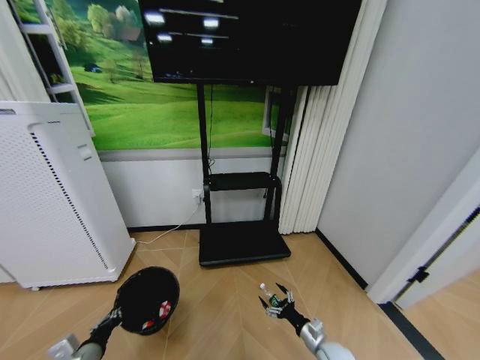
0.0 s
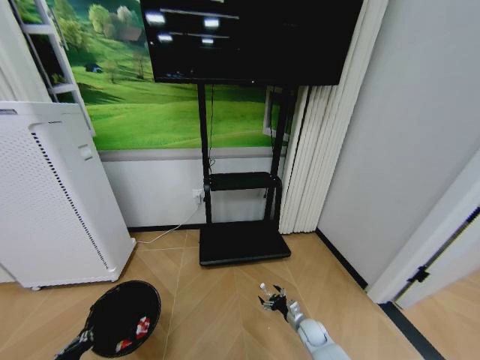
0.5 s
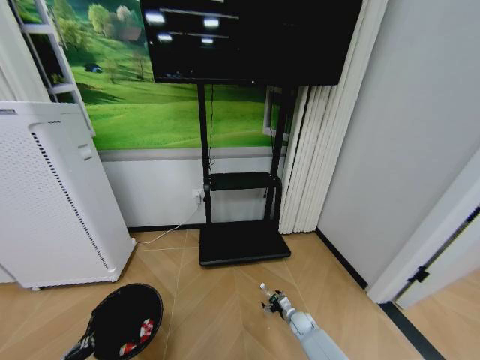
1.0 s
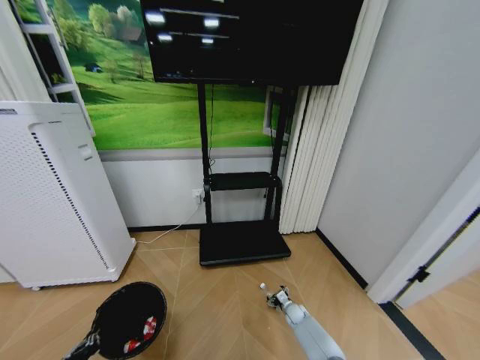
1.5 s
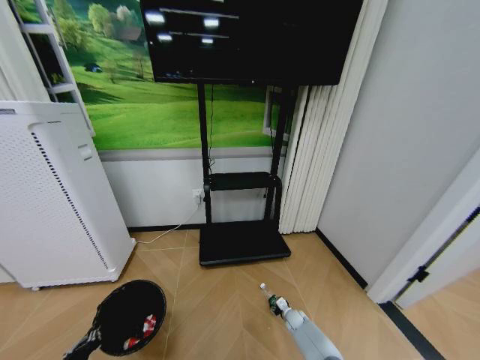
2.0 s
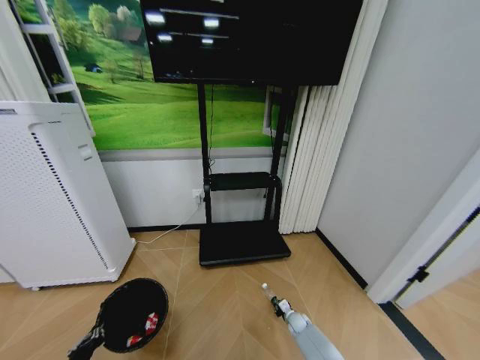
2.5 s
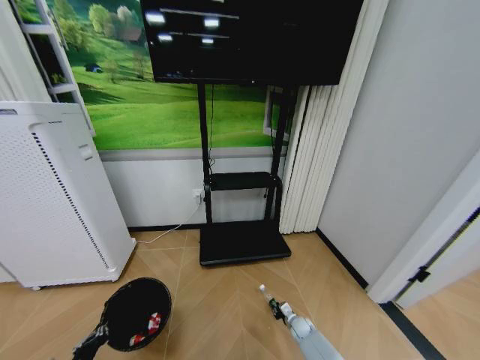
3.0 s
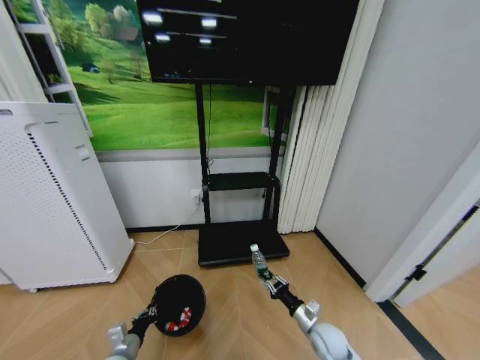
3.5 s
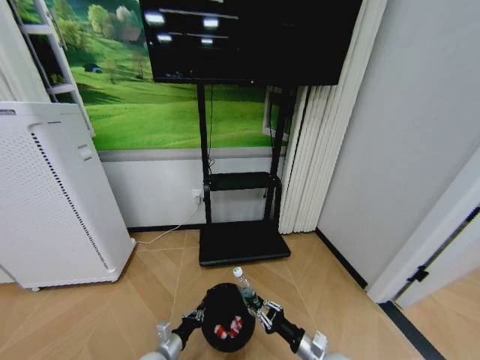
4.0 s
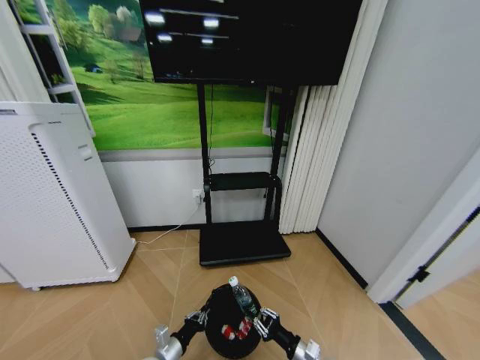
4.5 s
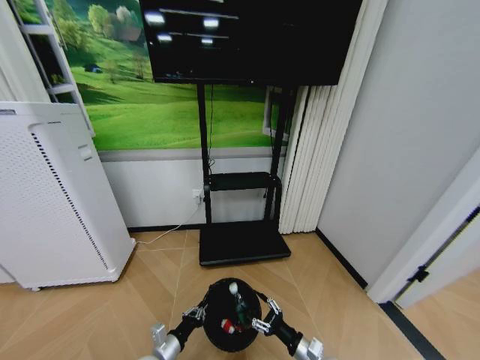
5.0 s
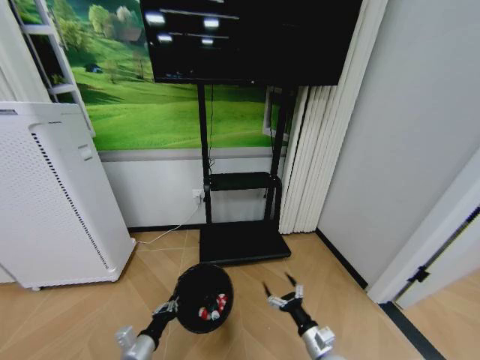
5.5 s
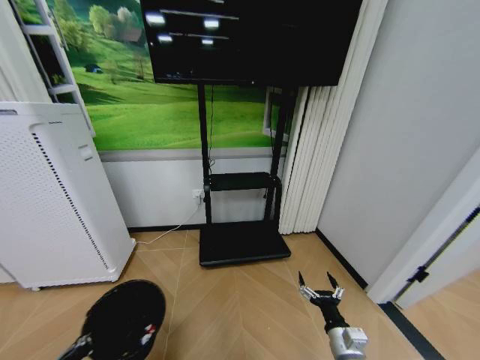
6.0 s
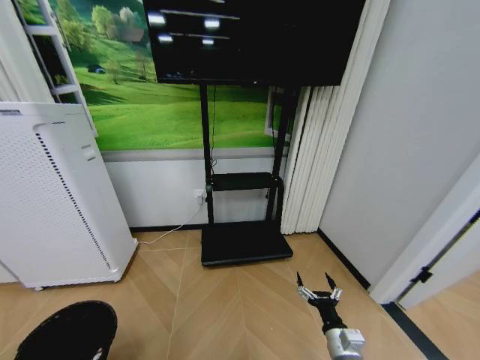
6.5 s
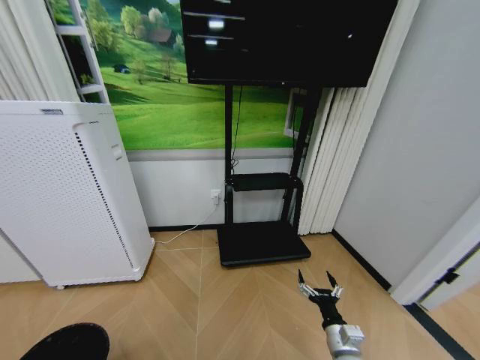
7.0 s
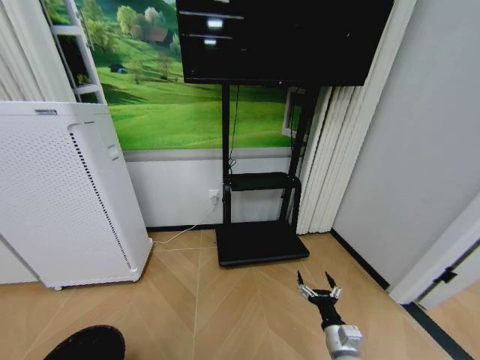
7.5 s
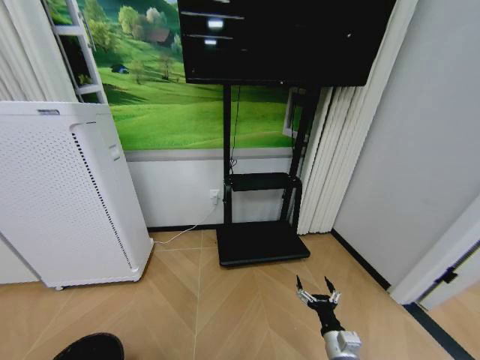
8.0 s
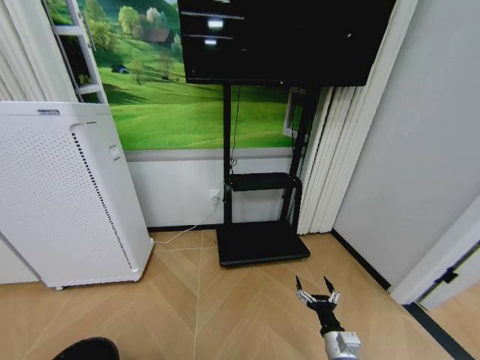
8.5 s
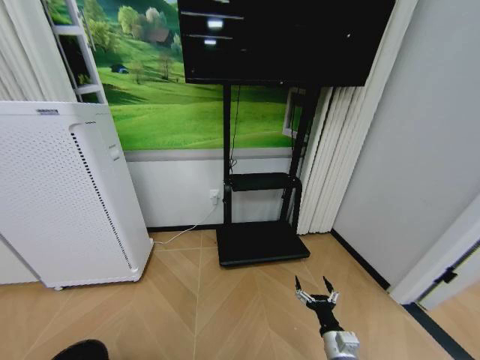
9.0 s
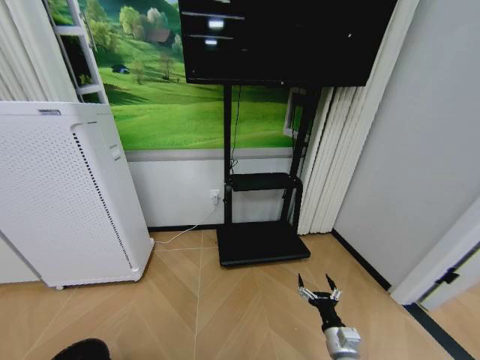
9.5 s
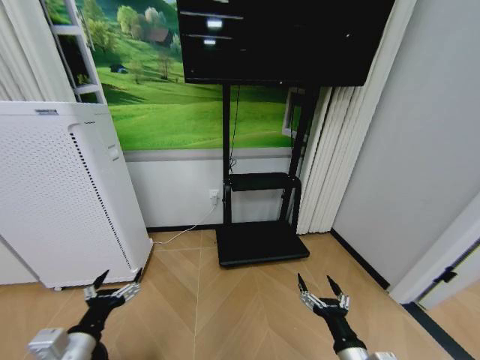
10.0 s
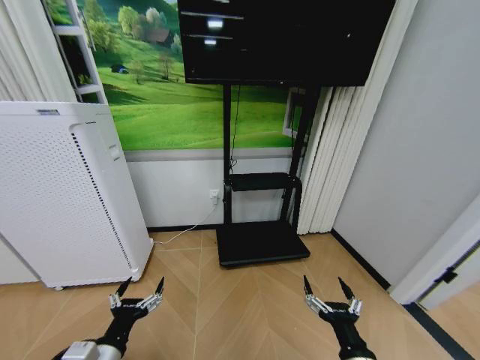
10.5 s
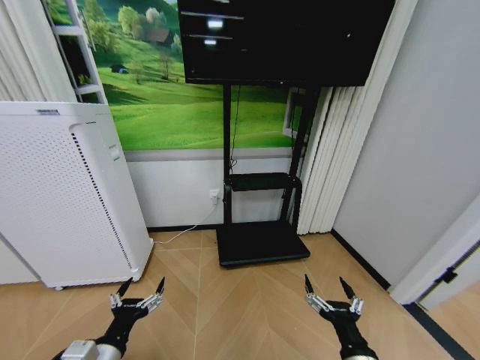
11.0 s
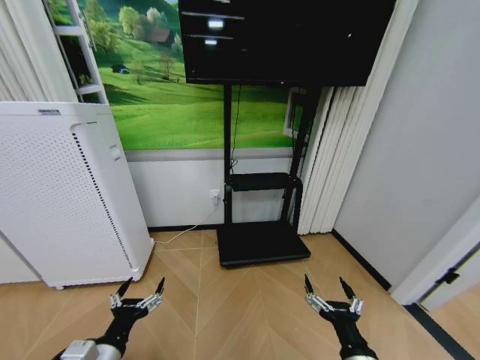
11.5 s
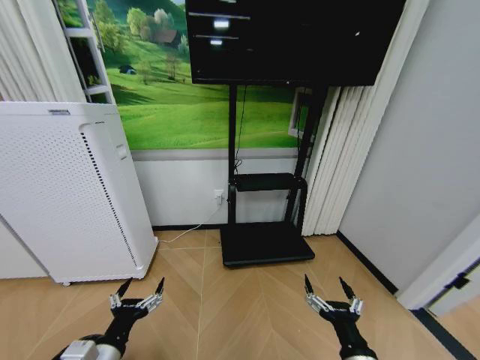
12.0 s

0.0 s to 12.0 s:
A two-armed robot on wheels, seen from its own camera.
Task of the whole recording: Pick up the trash bin and place the garbage on the floor into it.
0.0 to 2.0 s: The left gripper moves backward, some 5 cm; the right gripper heads forward and downward, covering approximately 20 cm, and closes up.
2.0 to 4.0 s: The right gripper goes approximately 25 cm upward and backward, and closes its fingers. Meanwhile the left gripper moves to the right, downward and forward, roughly 20 cm.
4.0 to 6.0 s: The right gripper changes place by roughly 5 cm, and opens up. The left gripper is displaced upward, backward and to the left by roughly 25 cm.
6.0 to 8.0 s: The left gripper shifts approximately 20 cm to the left, downward and backward.
8.0 to 10.0 s: The right gripper heads upward and backward, covering about 10 cm; the left gripper moves upward, to the right and forward, about 25 cm, and opens up.
10.0 to 12.0 s: The left gripper shifts about 5 cm to the right.

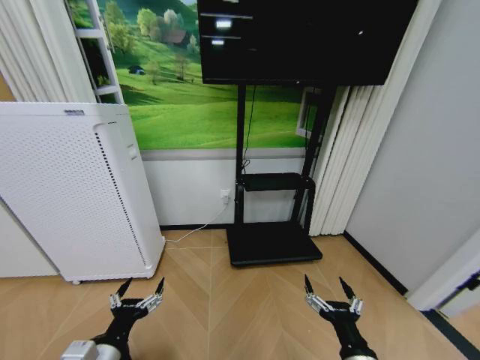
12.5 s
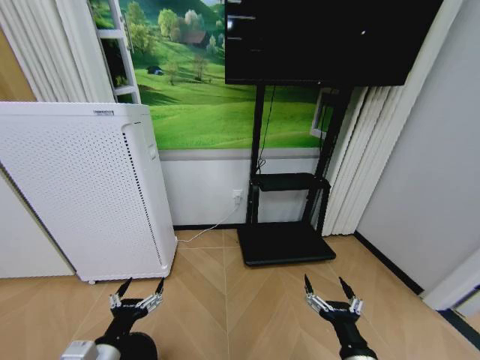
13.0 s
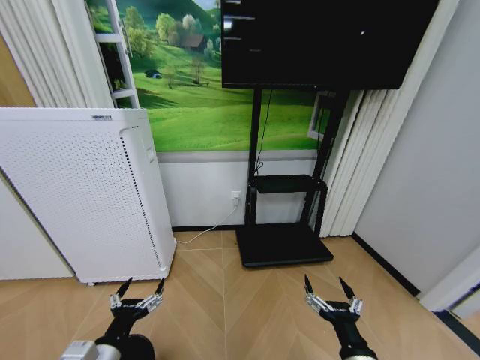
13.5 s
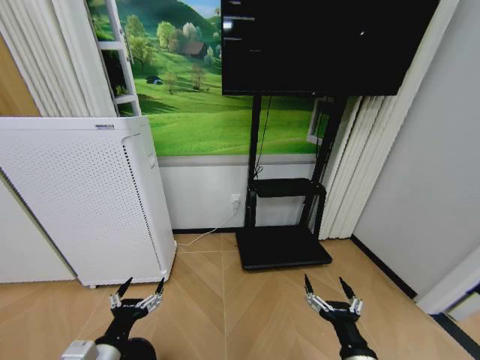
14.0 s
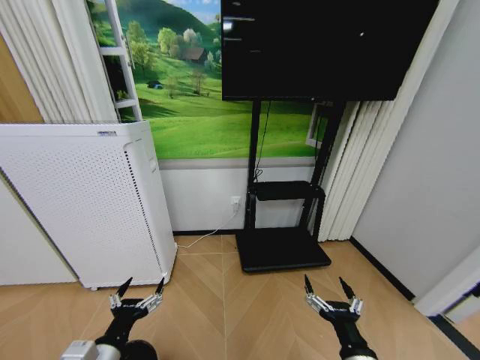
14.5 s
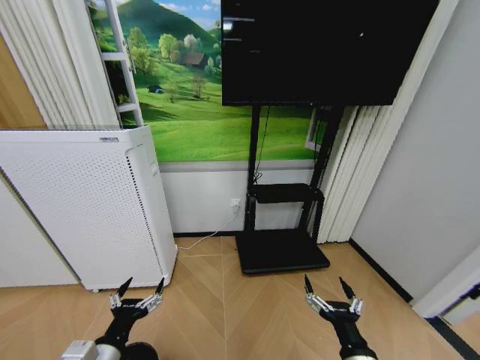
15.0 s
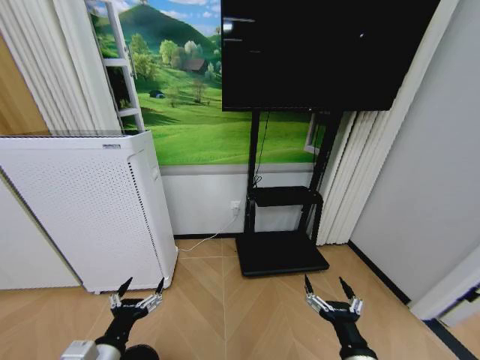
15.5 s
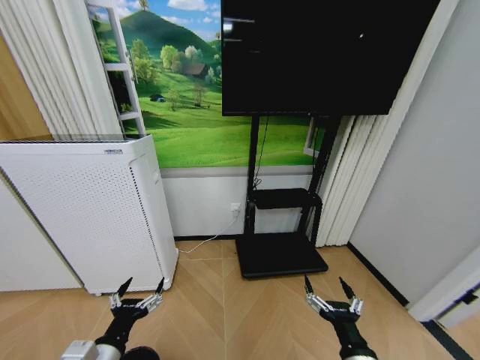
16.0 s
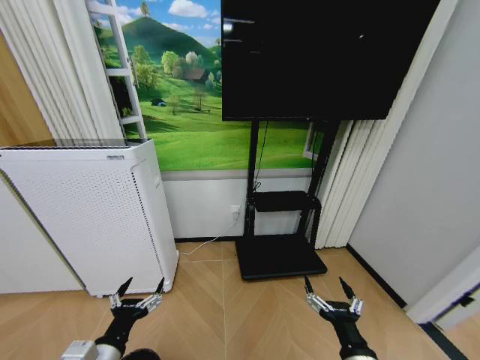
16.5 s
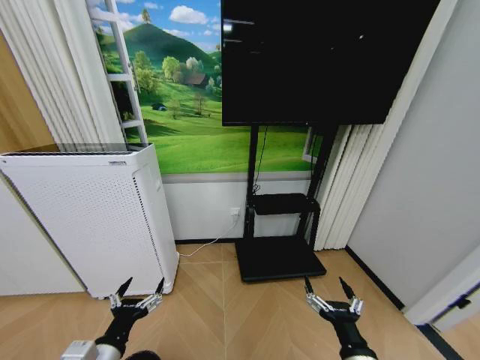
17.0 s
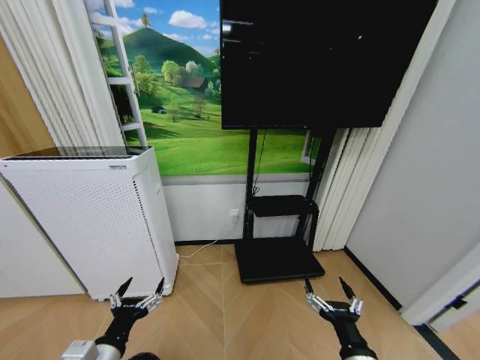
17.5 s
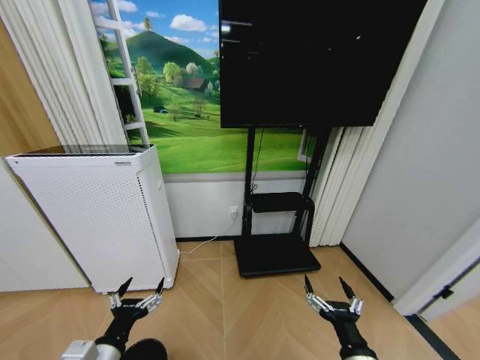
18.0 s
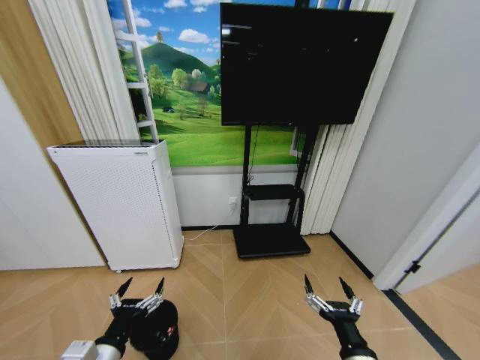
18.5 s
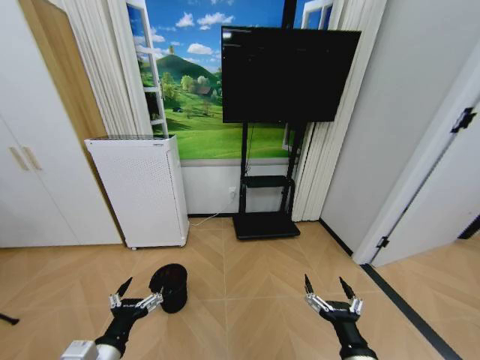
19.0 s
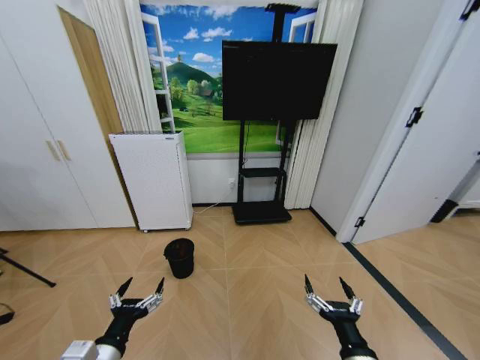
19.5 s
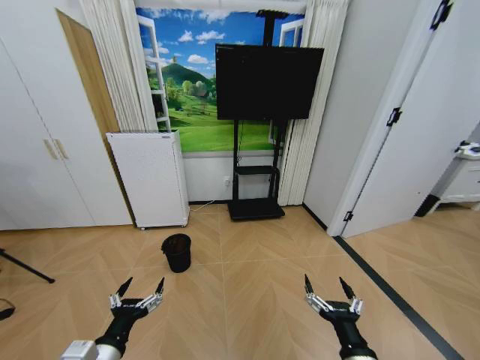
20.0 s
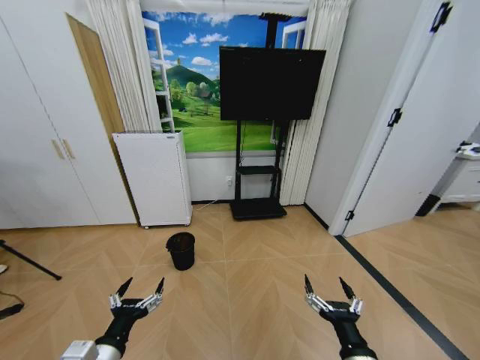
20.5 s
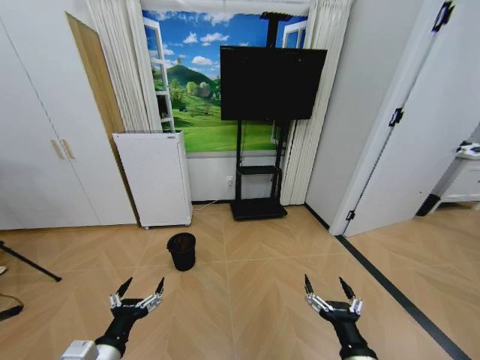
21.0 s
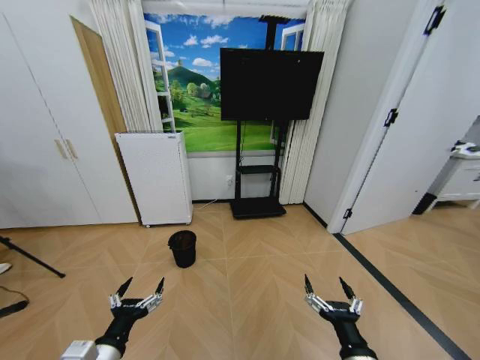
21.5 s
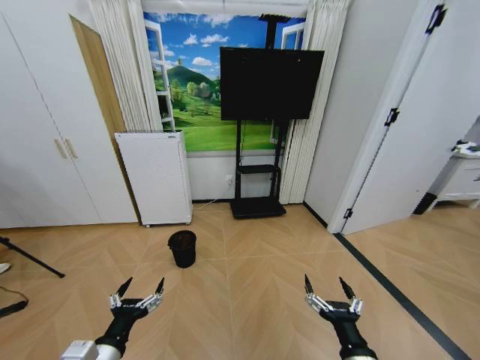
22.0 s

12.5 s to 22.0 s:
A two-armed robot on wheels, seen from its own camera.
Task of the whole recording: Pick up the trash bin and place the garbage on the floor into it.
14.5 to 18.0 s: Both grippers stay put.
20.0 to 22.0 s: Both grippers stay put.

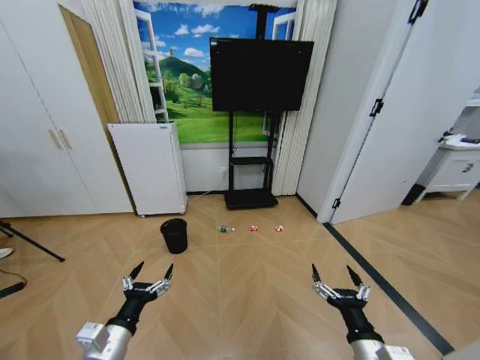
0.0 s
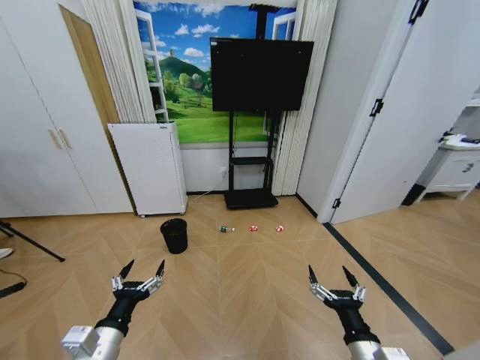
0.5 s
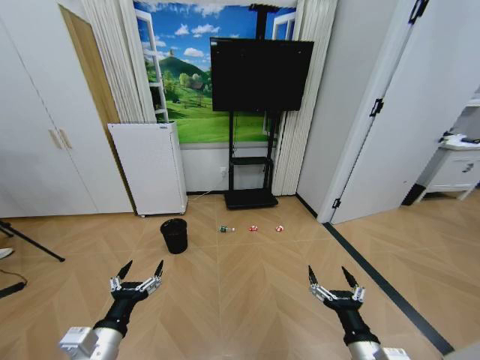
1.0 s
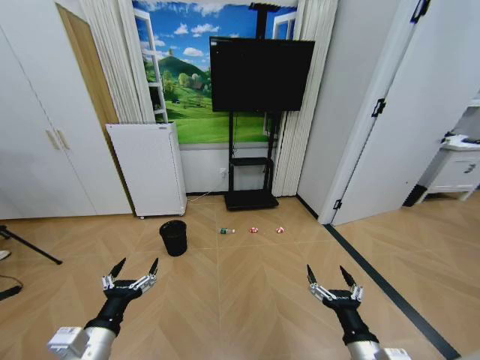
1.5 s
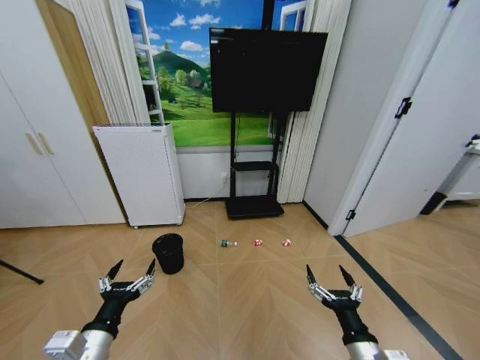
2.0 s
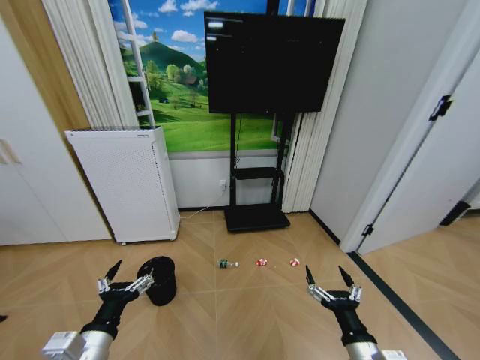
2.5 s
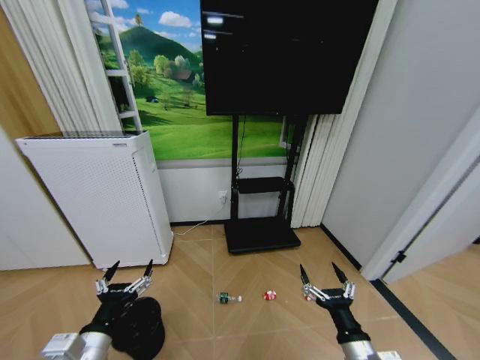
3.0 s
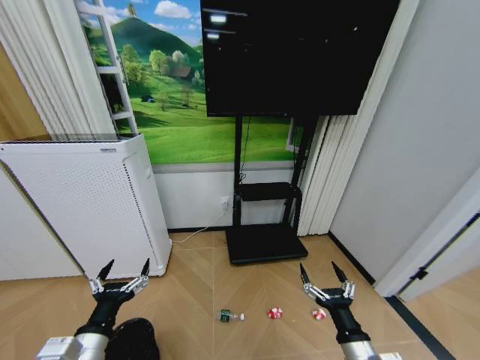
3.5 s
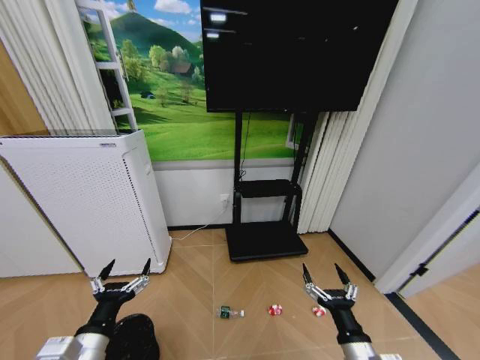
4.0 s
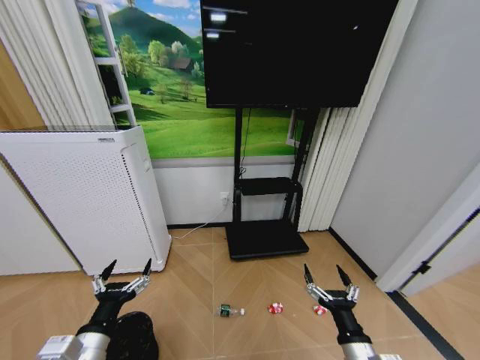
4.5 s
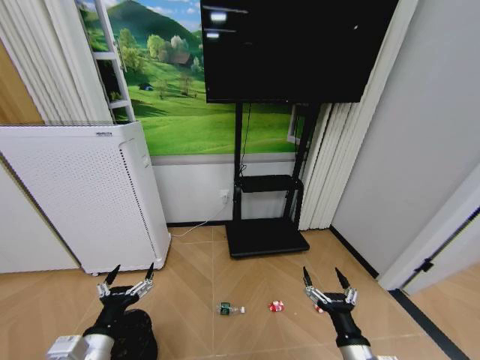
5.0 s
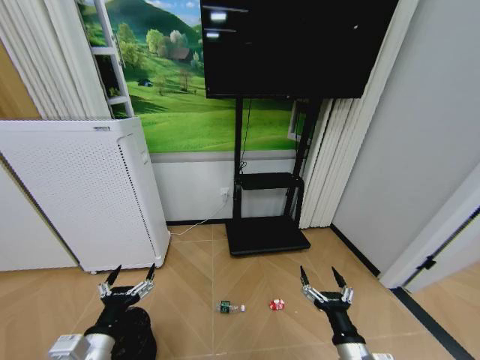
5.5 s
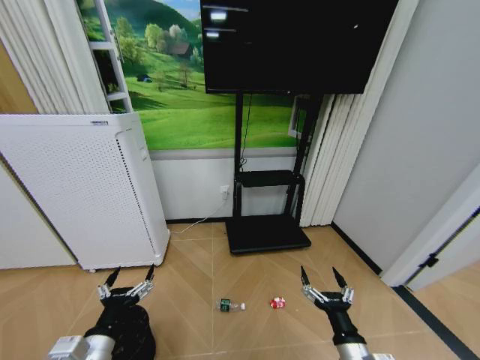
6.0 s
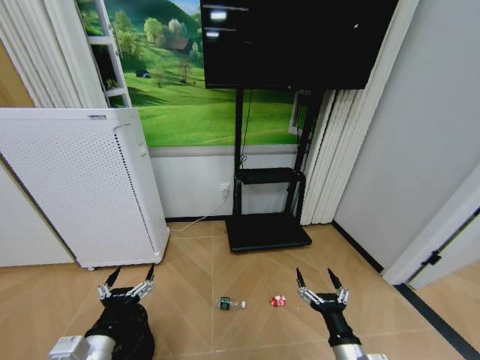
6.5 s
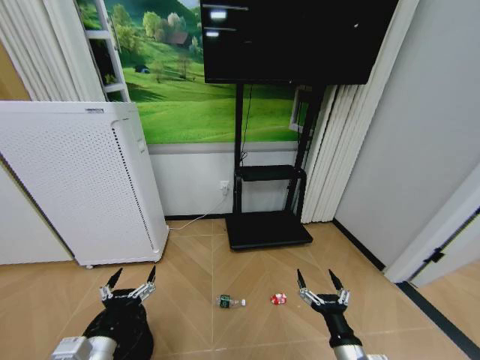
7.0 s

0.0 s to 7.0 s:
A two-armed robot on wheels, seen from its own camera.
Task of the whole recording: Pick up the trash bin and place the garbage on the floor into it.
3.5 to 5.0 s: The grippers make only small movements.
5.0 to 7.0 s: Neither gripper changes place.
